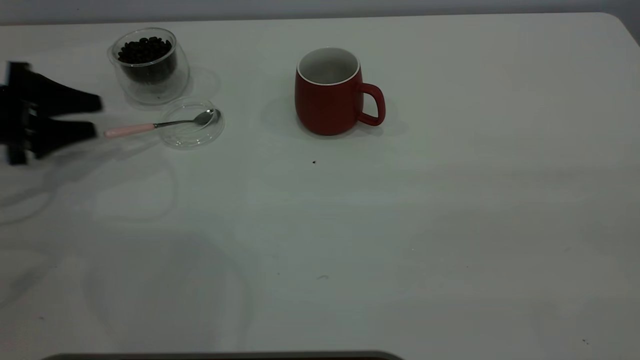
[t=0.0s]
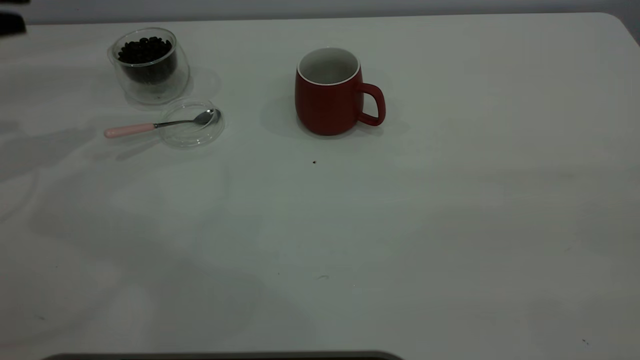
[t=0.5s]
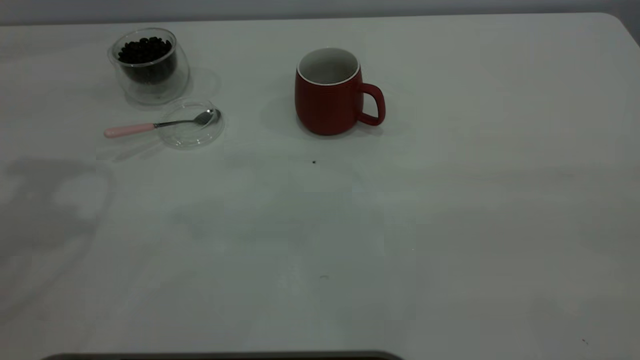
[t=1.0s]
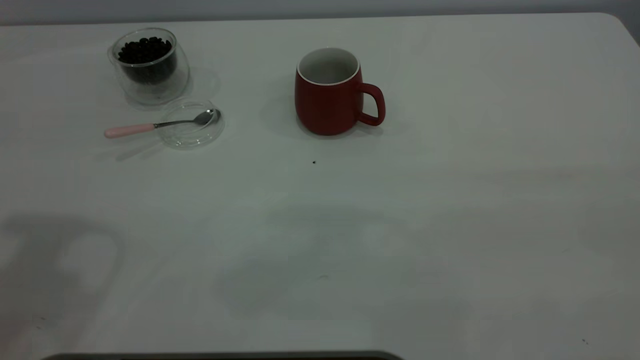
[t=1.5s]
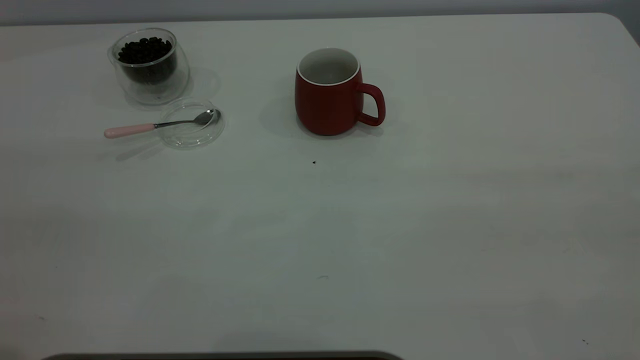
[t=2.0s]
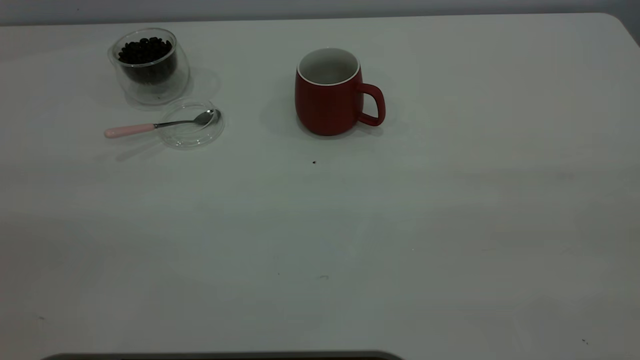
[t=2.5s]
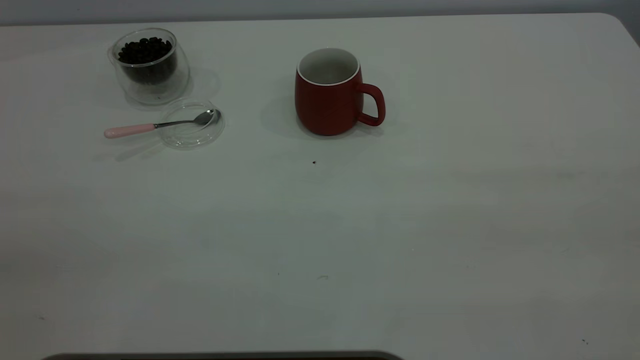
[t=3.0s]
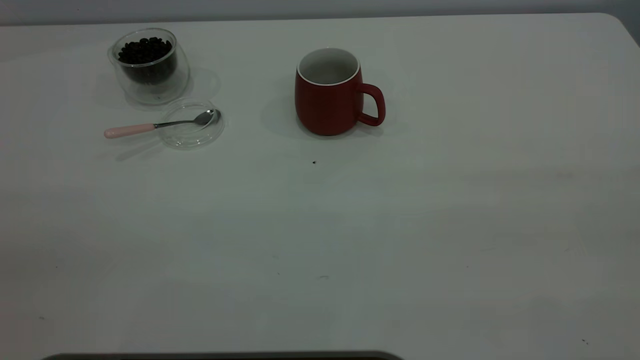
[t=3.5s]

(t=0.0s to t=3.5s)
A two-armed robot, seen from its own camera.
Task of the whole recording: the right gripper place the red cup in the center of the table, the left gripper take the pink spoon from the cup lid and scoop out the coffee beans from the coffee cup and put them into the red cup, the left gripper put the spoon back into the cup lid.
t=0.0s - t=2.0s: The left gripper travels upward, backward and to the right by approximately 40 cm.
